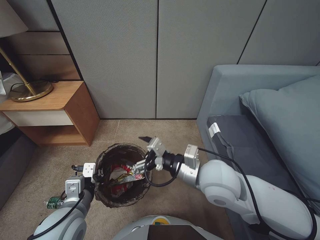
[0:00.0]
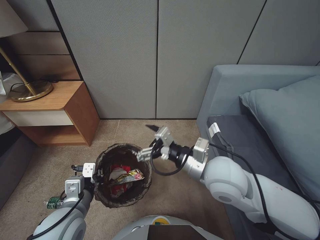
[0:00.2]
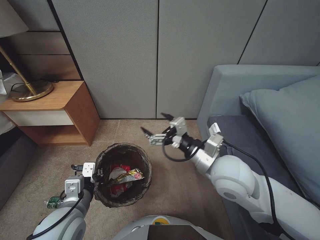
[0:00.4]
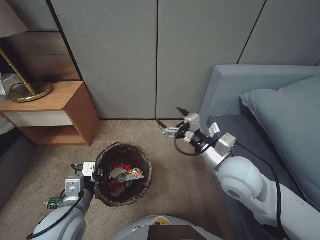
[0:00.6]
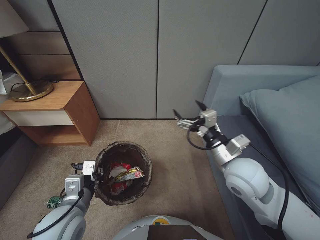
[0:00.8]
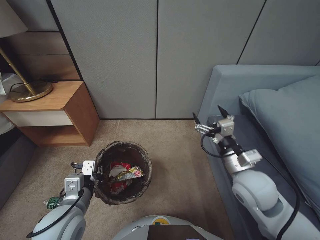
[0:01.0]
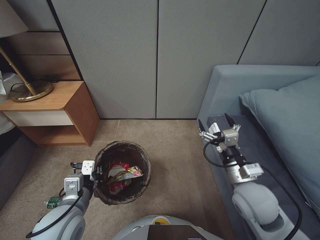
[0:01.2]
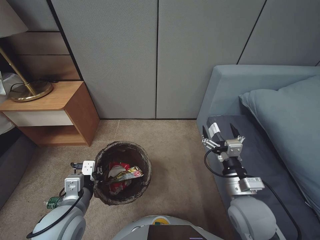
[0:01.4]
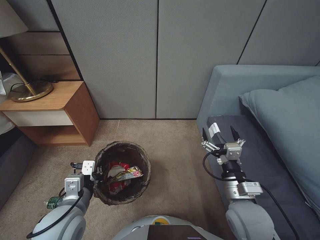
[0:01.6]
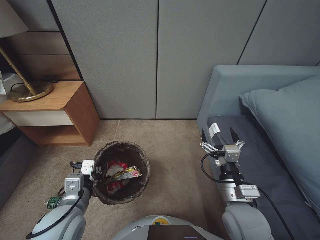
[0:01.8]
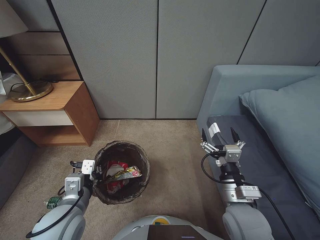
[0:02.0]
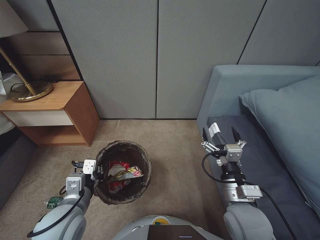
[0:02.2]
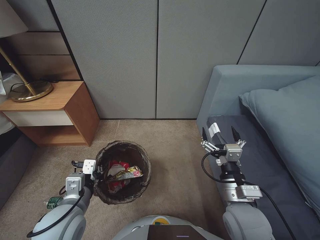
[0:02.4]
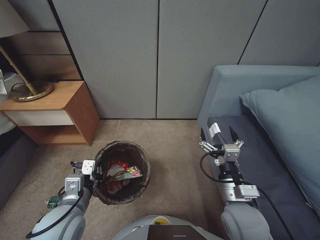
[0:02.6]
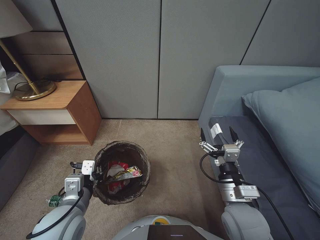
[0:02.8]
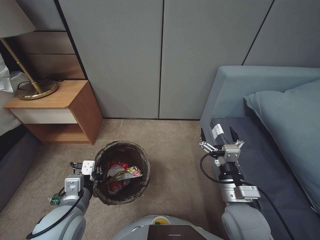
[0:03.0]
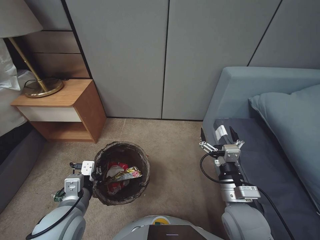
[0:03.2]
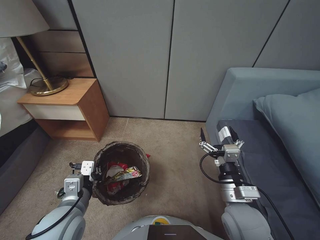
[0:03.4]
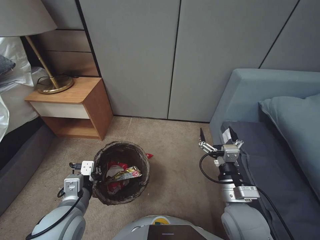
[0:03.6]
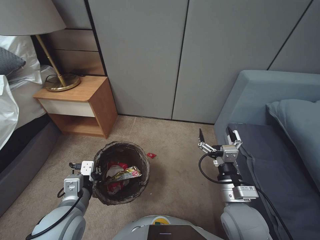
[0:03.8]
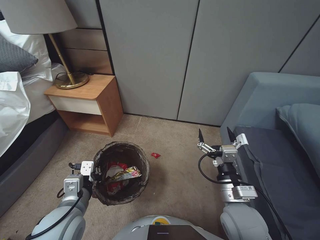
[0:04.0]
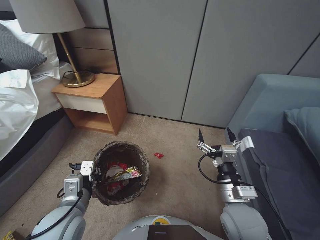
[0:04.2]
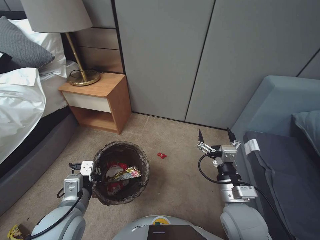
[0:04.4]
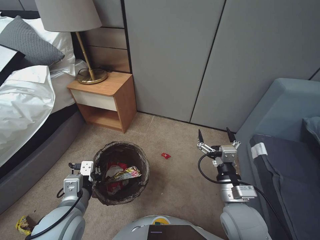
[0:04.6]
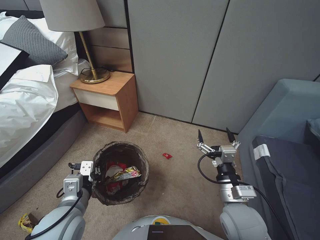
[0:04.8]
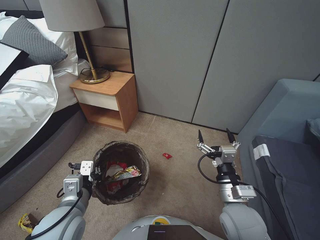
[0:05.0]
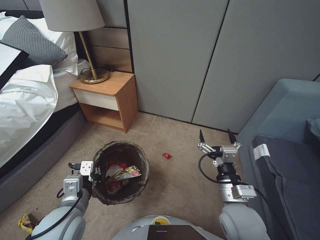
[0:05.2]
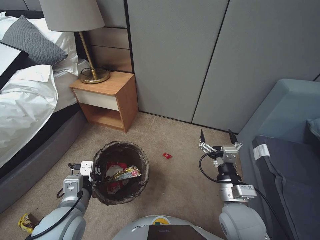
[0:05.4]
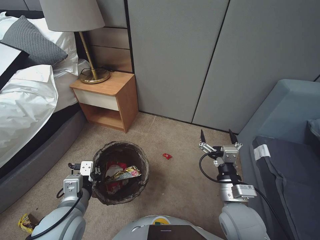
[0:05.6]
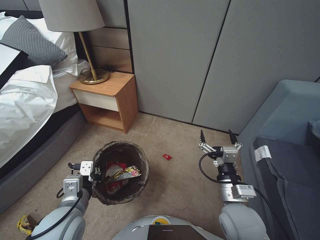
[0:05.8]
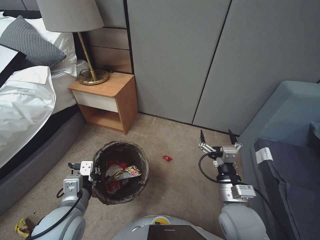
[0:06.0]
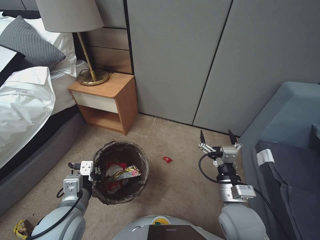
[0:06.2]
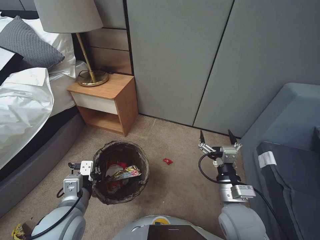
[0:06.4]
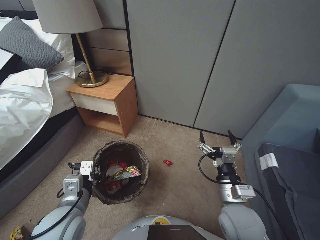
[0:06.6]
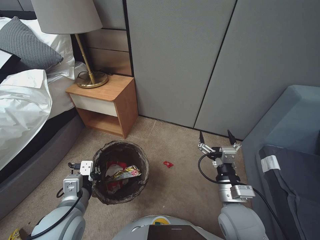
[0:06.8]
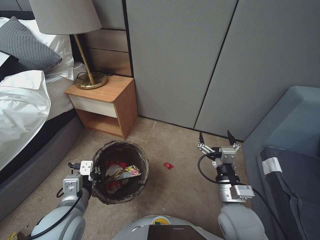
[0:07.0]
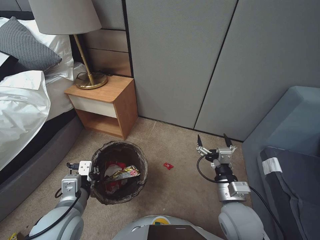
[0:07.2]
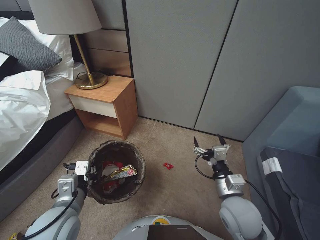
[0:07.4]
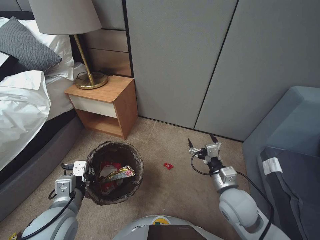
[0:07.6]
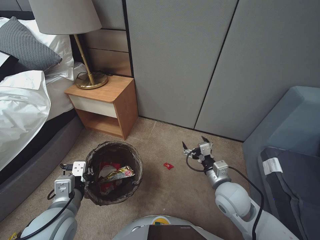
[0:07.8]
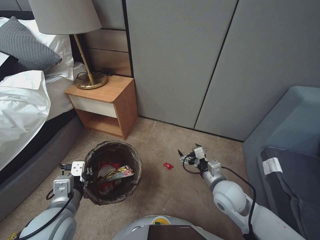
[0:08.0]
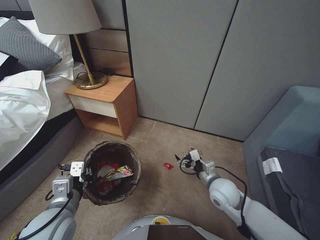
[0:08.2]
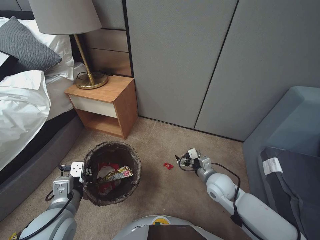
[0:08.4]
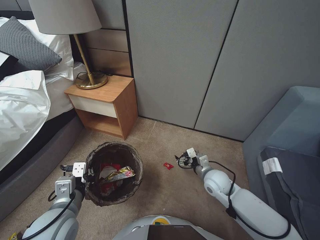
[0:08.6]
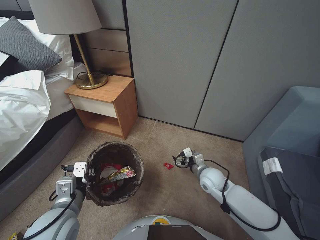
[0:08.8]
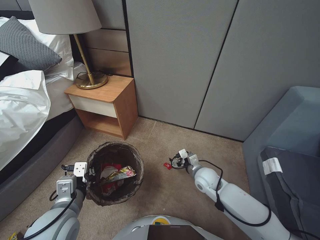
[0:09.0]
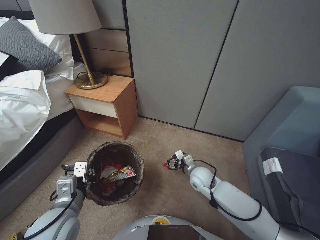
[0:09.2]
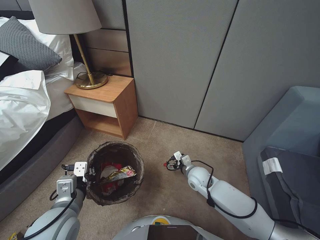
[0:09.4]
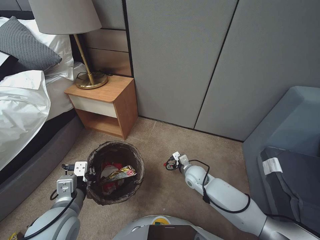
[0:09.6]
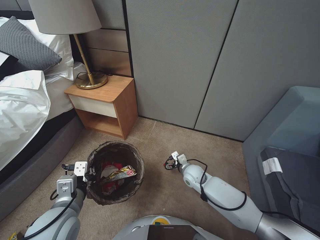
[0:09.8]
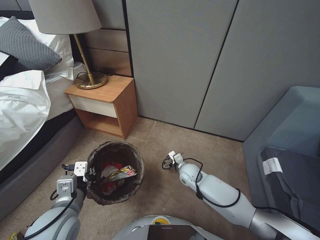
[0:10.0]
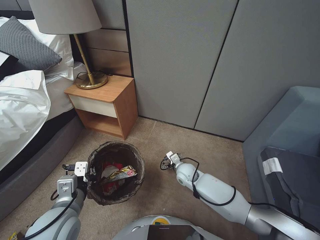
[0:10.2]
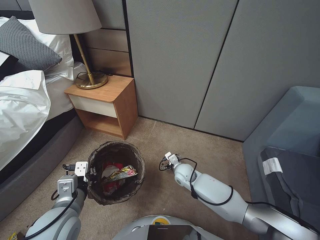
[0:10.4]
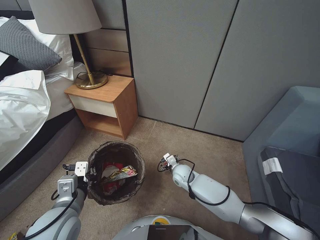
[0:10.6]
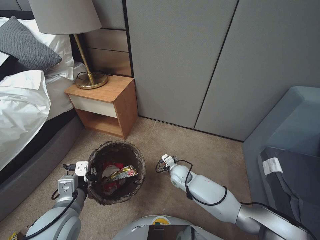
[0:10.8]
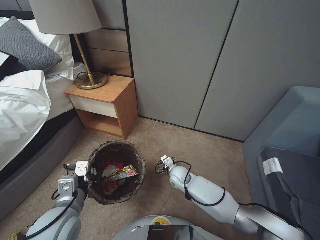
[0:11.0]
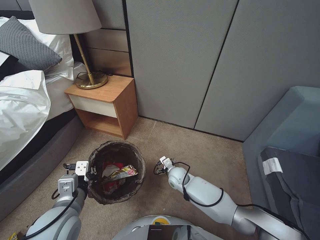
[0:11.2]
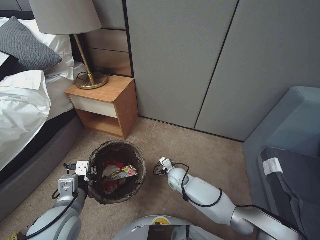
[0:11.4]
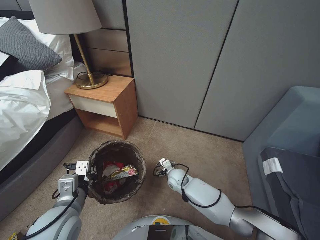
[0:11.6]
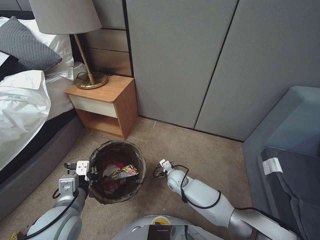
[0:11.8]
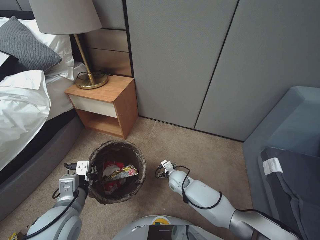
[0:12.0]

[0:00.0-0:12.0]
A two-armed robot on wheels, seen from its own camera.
Task of the whole recording: Pick up the trash bin, then pick up the garbage from the floor and place it into the trash bin.
0:00.0 to 0:01.6: The right gripper moves to the right, downward and backward, about 15 cm.
0:01.6 to 0:03.0: The grippers stay close to where they were, moving slightly.
0:04.4 to 0:06.0: Both grippers stay put.
0:07.6 to 0:09.0: The right gripper goes approximately 15 cm forward and downward.
0:09.0 to 0:10.4: The right gripper moves to the left and downward, roughly 10 cm.
0:10.4 to 0:12.0: The right gripper goes approximately 5 cm downward.

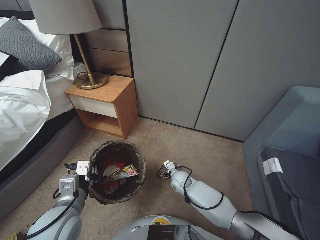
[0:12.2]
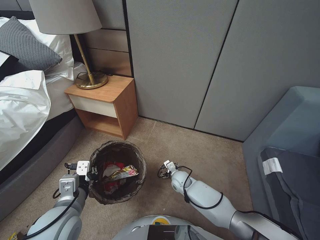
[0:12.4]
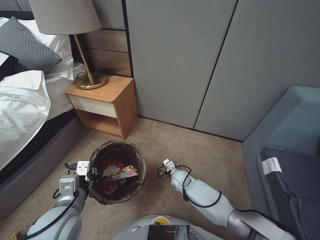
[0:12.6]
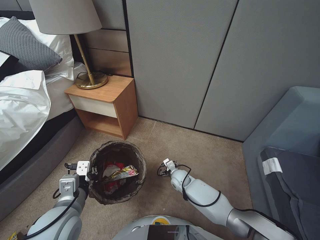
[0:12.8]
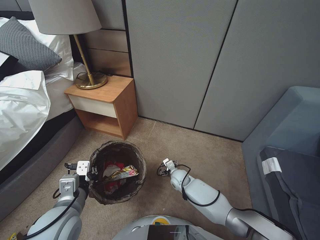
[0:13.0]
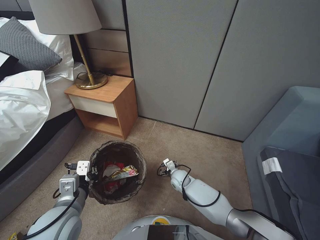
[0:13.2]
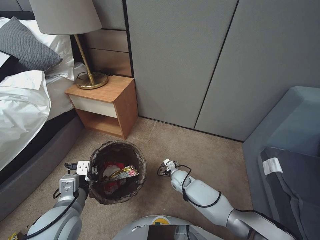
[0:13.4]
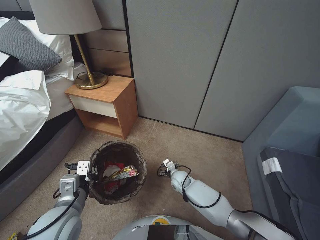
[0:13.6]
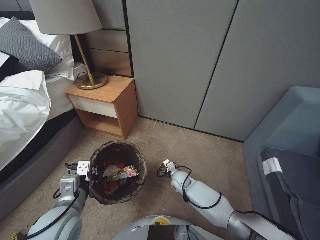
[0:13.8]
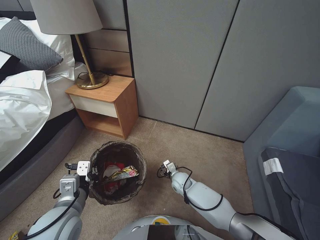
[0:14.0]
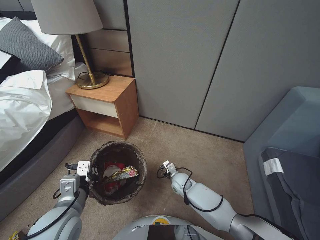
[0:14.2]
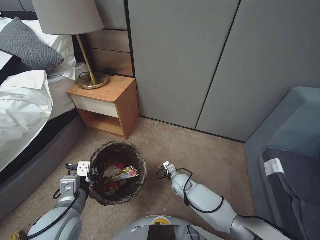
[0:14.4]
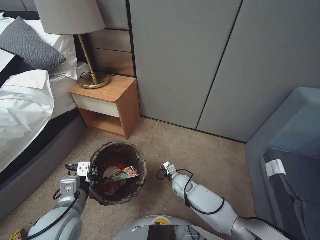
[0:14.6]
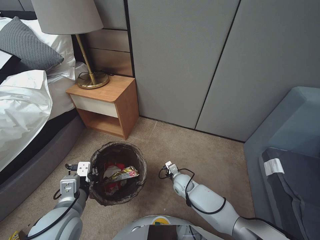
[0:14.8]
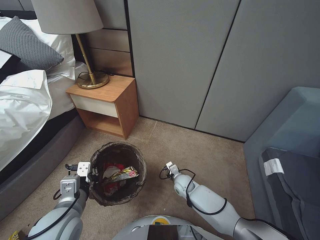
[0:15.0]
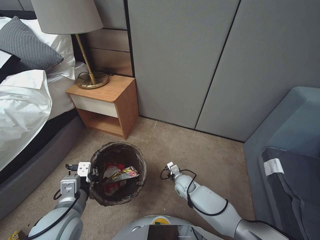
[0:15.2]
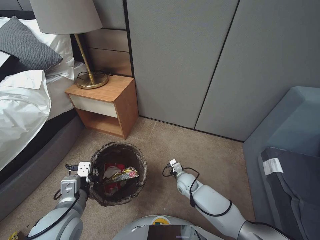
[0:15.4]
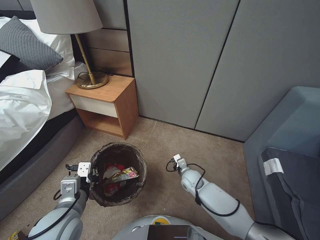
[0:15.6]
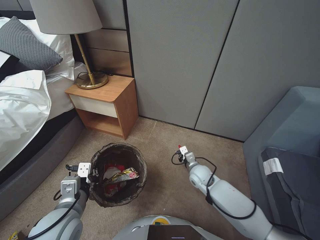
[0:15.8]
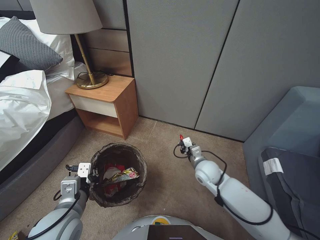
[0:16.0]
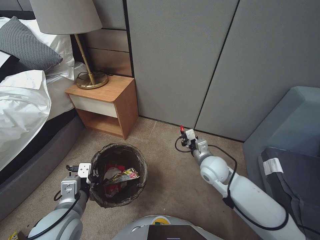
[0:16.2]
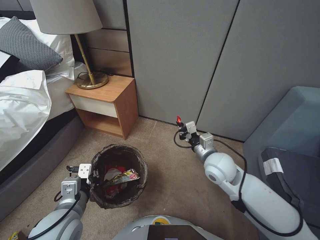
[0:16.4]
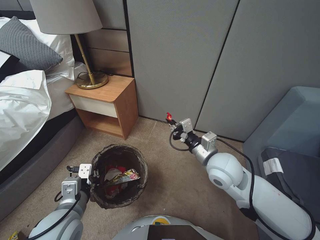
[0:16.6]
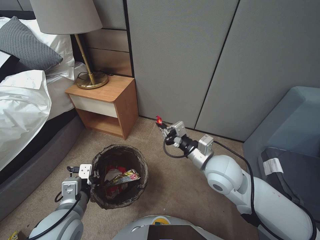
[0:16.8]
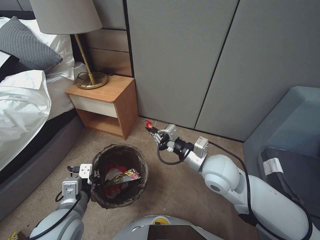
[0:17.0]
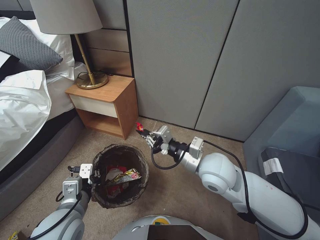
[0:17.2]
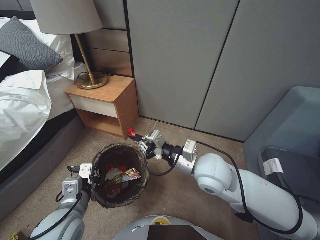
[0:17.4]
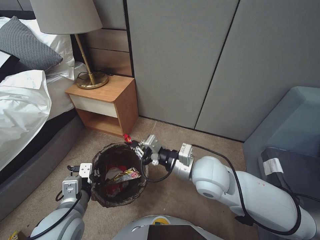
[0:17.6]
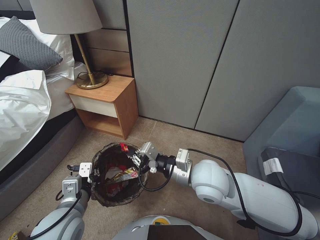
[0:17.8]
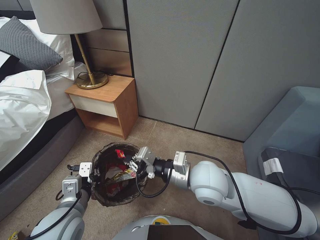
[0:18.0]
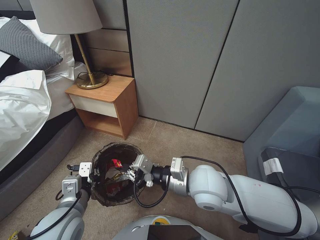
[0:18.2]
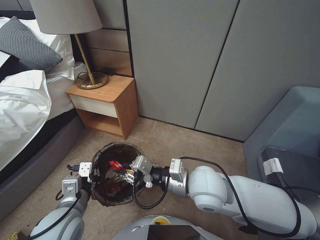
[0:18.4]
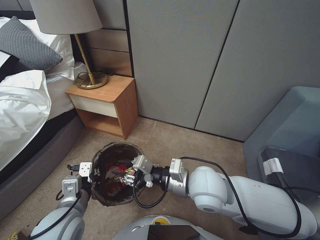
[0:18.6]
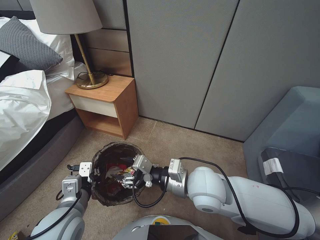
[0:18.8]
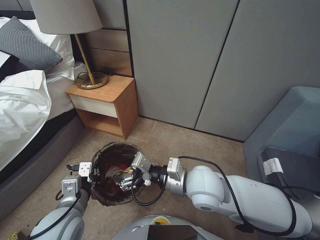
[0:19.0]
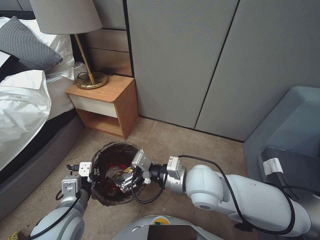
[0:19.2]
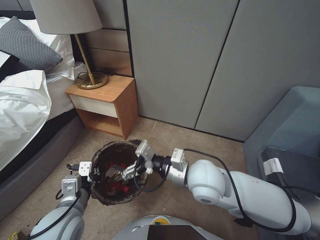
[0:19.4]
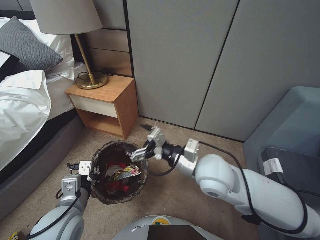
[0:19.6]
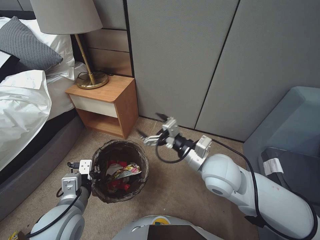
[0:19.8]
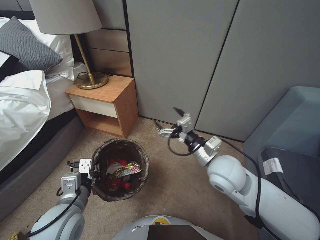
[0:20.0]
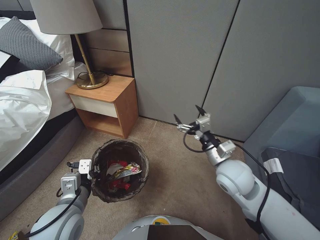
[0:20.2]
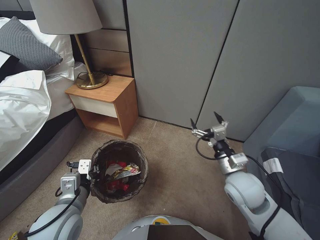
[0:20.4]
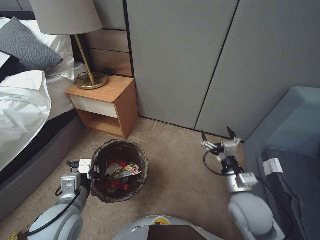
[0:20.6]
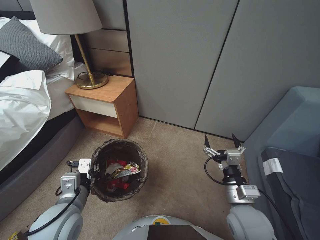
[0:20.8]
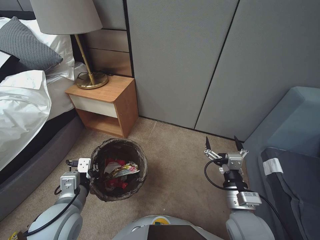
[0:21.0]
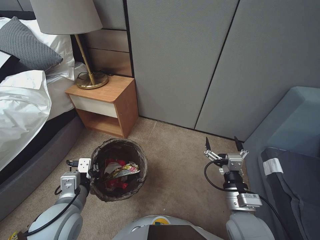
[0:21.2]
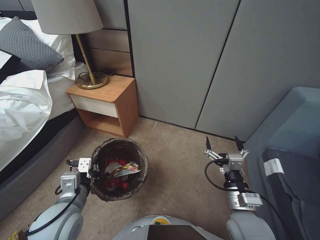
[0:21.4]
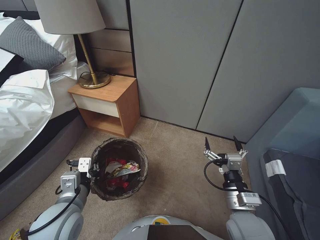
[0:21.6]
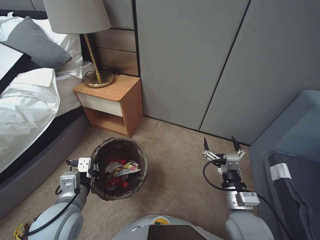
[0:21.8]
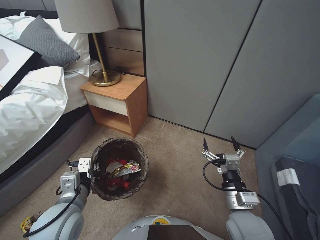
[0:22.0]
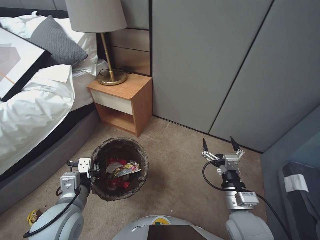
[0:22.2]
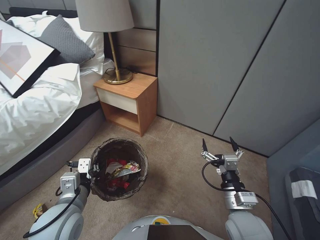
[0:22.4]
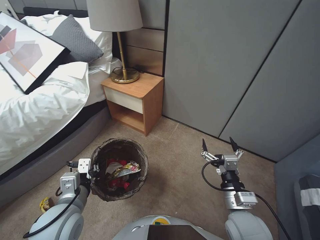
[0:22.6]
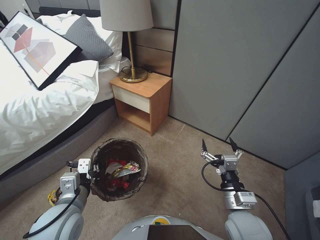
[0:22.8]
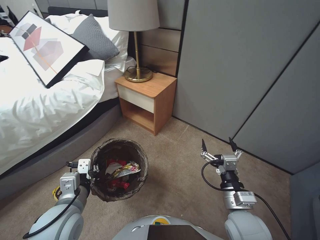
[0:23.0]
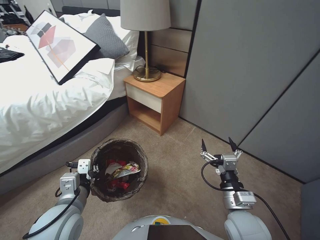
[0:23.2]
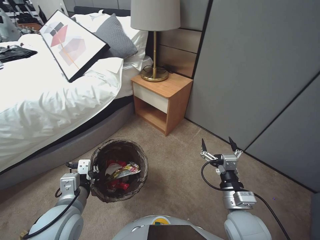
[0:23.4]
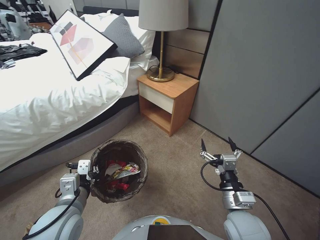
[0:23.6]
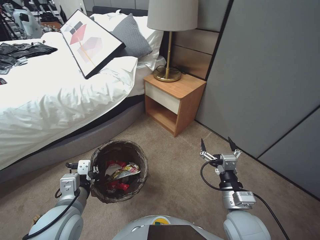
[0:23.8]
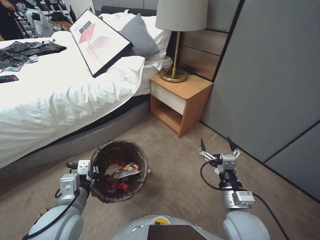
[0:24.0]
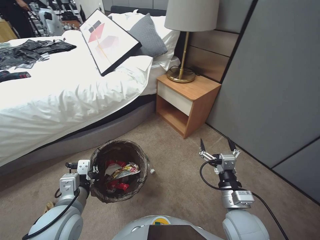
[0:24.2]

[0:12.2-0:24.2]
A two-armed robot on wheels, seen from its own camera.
Task of the whole recording: Pick up the trash bin, then pick up the garbage from the floor and place it into the trash bin.
0:12.2 to 0:13.8: The grippers move only a little.
0:13.8 to 0:15.2: The right gripper closes.
0:15.2 to 0:16.6: The right gripper moves upward, some 30 cm.
0:16.6 to 0:18.2: The right gripper travels to the left and backward by approximately 10 cm.
0:18.2 to 0:19.8: The right gripper opens up.
0:19.8 to 0:21.2: The right gripper goes about 20 cm downward, backward and to the right.
